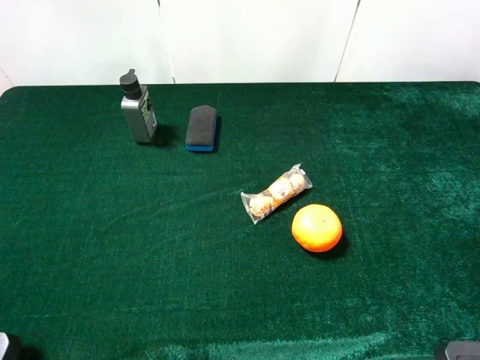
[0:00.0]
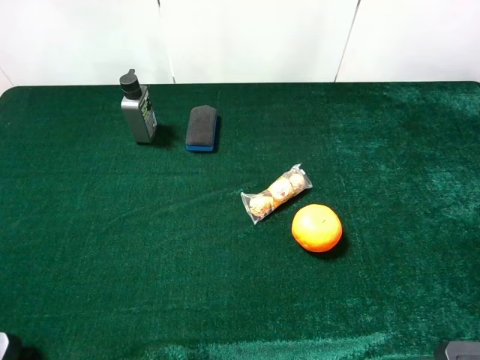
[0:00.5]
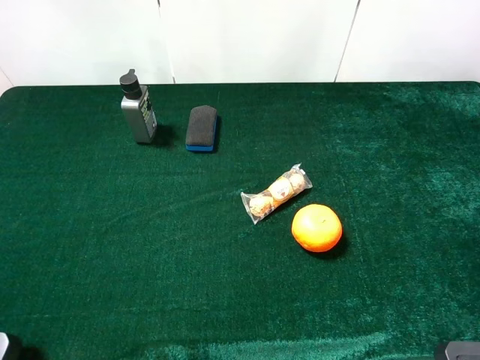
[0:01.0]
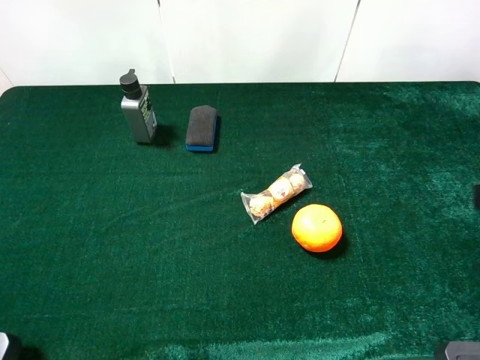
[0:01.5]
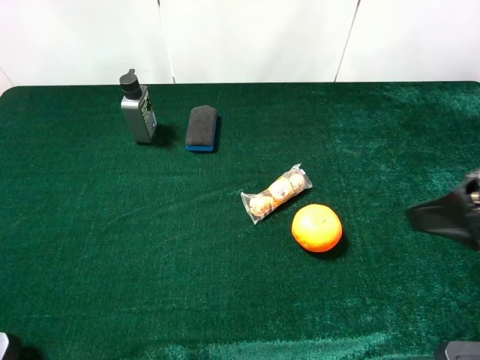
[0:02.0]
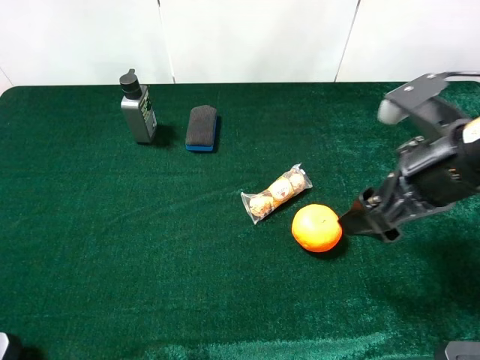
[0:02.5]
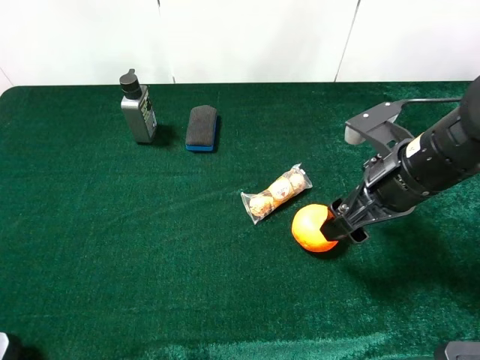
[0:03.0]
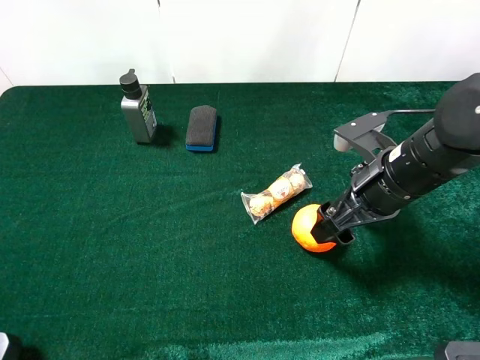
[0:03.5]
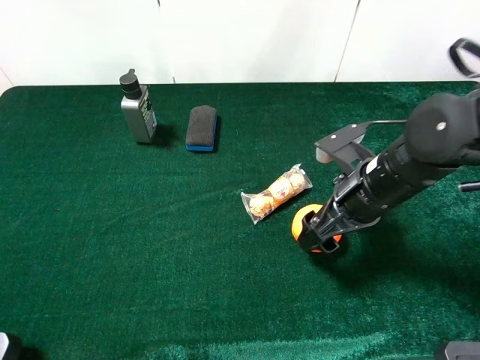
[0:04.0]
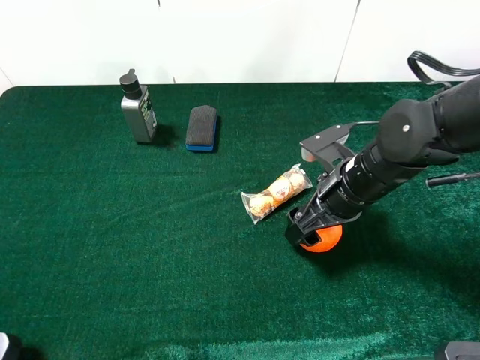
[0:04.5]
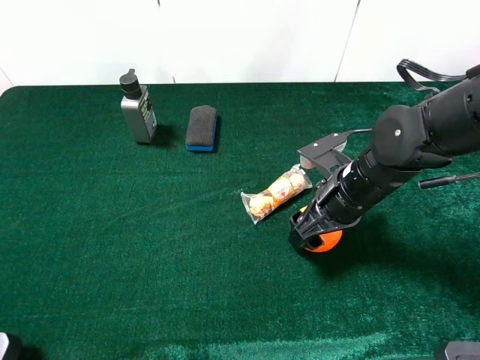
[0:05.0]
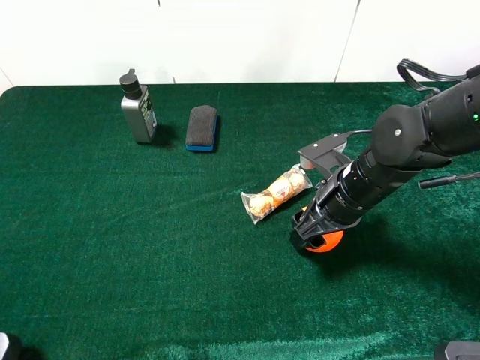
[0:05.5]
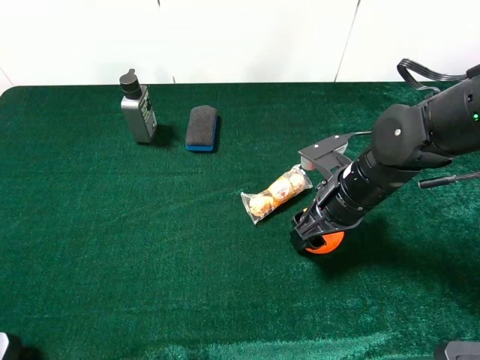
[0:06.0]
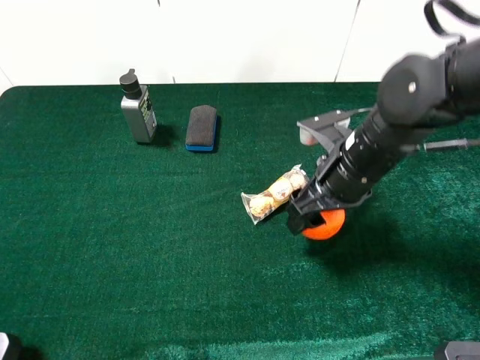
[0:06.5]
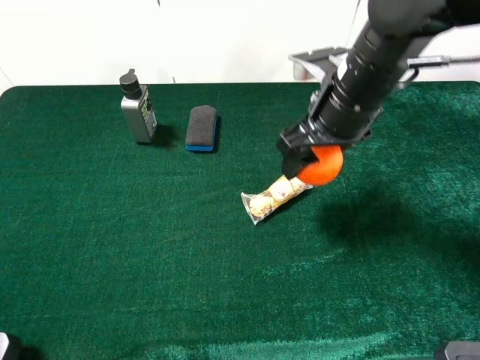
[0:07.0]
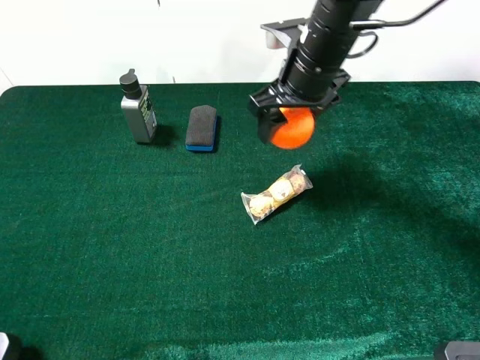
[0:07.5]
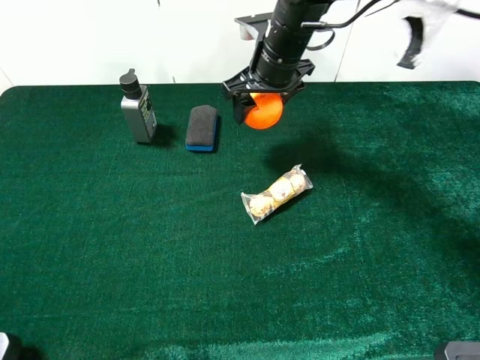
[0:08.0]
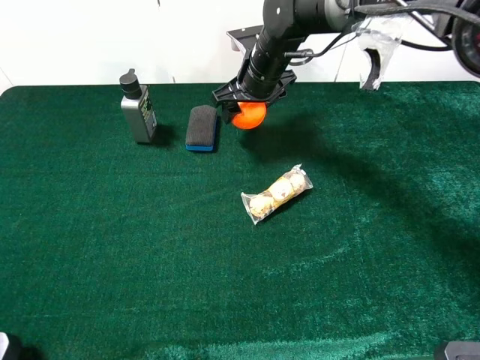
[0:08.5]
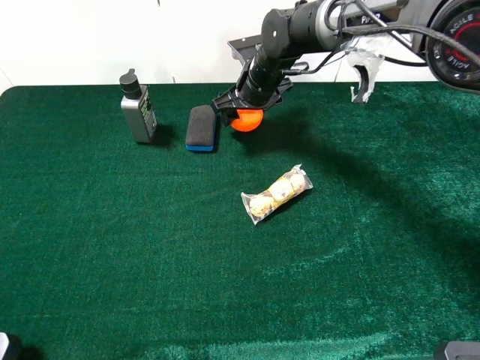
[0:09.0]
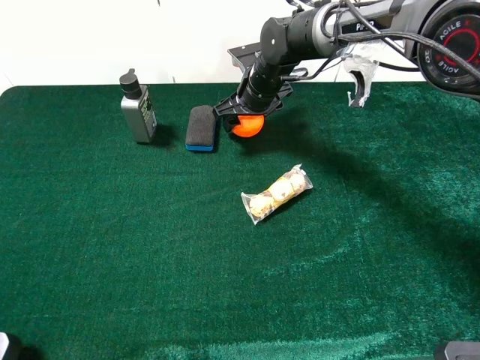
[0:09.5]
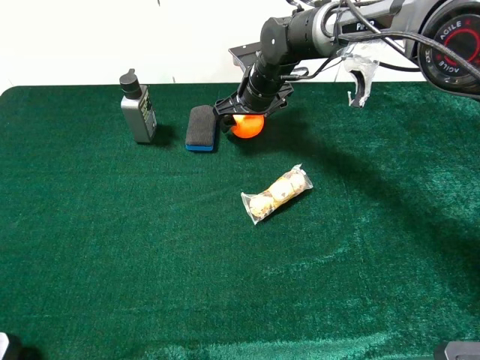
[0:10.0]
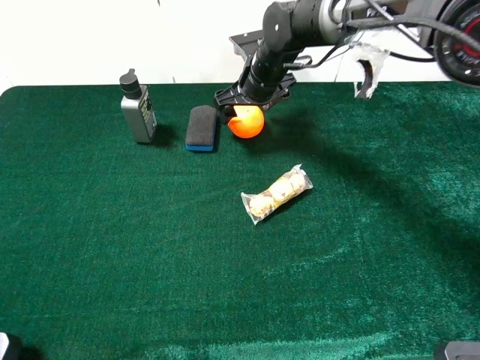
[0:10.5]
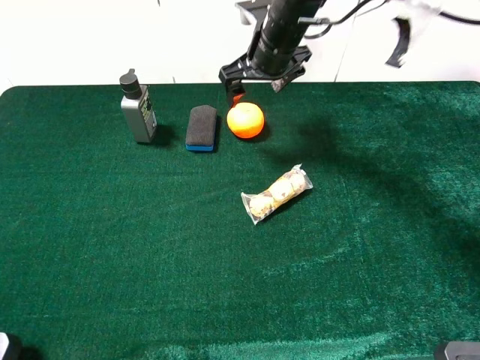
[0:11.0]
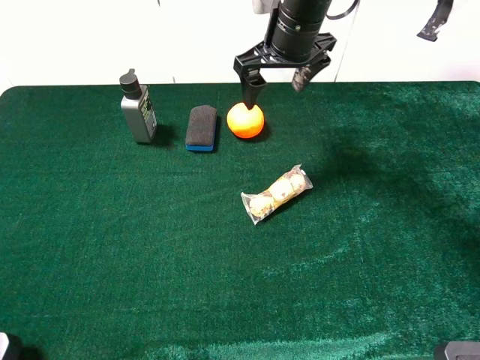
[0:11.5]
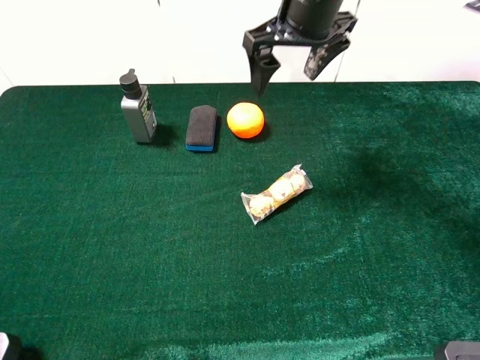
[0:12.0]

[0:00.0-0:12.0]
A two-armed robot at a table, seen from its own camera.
Task of the whole recording: the gripper move the object.
Step, 0:00.0 to 0:06.0: Grasp the orange with the right gripper.
Step, 0:06.5 to 0:10.5: Place the orange on the table with the right gripper.
0:00.0 to 0:02.0: The right gripper heads forward, covering approximately 10 cm.
0:02.0 to 0:04.0: The right gripper heads downward, forward and to the left, covering approximately 20 cm.
0:04.0 to 0:06.0: The right gripper closes its fingers.
0:06.0 to 0:08.0: The right gripper goes about 20 cm forward, to the left and upward.
0:08.0 to 0:10.0: The right gripper moves downward, about 10 cm, and opens.
0:10.0 to 0:12.0: The right gripper moves upward and backward, roughly 20 cm.

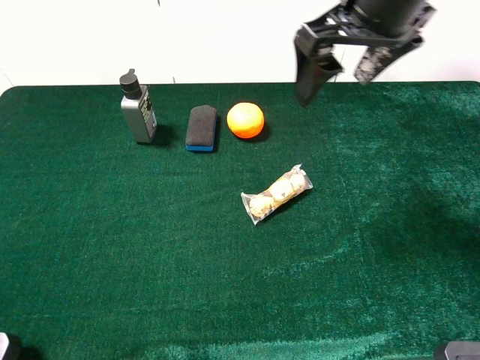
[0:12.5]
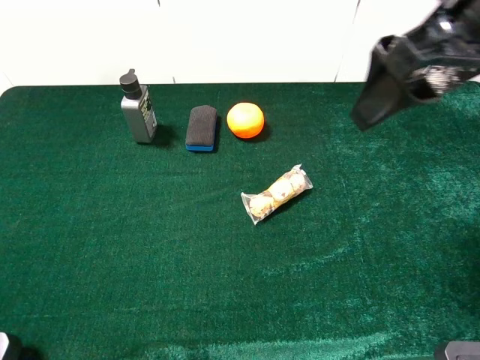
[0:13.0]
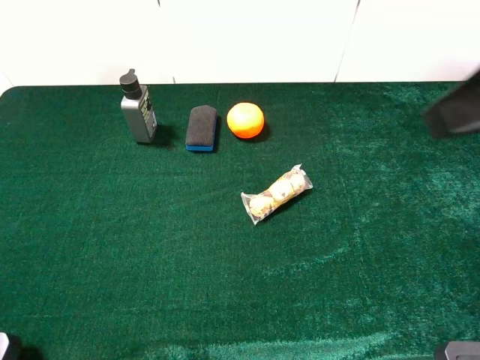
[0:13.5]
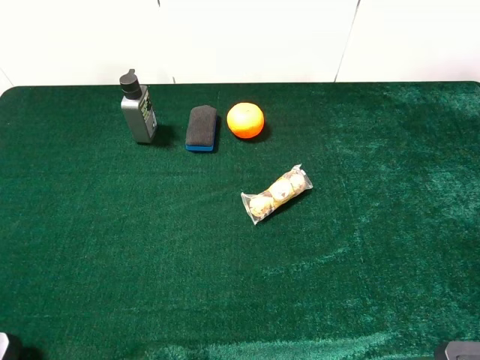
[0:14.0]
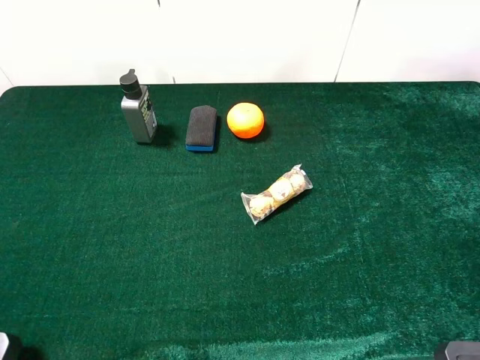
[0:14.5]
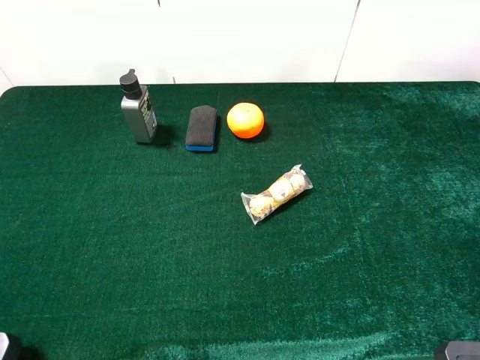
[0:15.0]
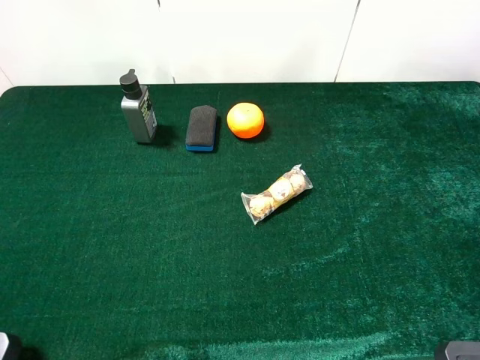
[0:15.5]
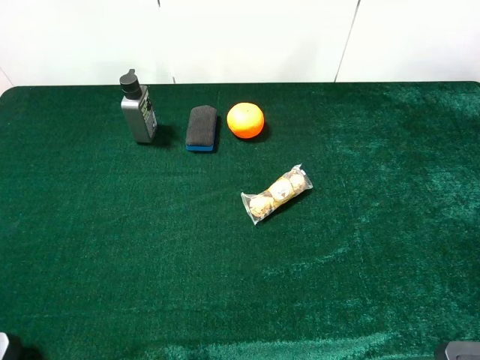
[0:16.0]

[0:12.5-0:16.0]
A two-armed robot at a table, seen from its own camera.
Task of the whole recording: the gripper move the object.
0:12.5 to 0:14.5: The right gripper travels backward and to the right by about 30 cm.
0:14.5 to 0:16.0: Both grippers stay put.

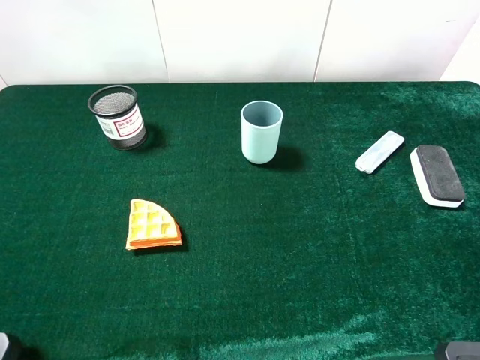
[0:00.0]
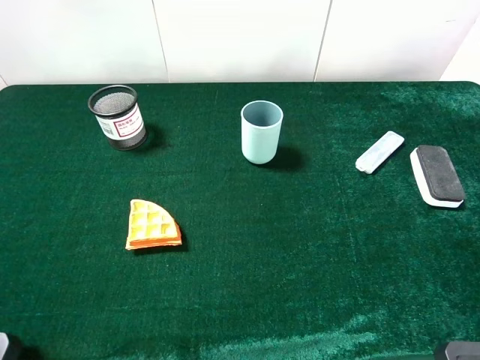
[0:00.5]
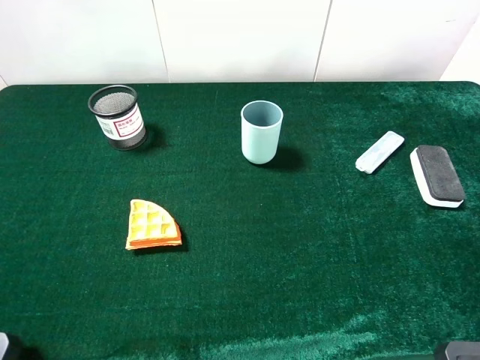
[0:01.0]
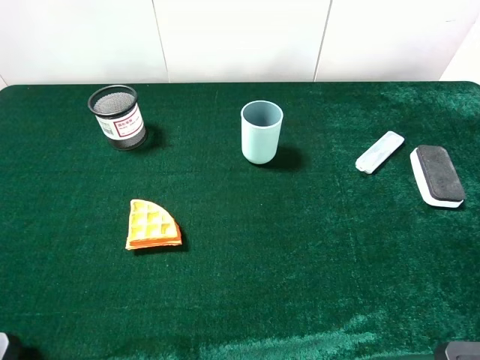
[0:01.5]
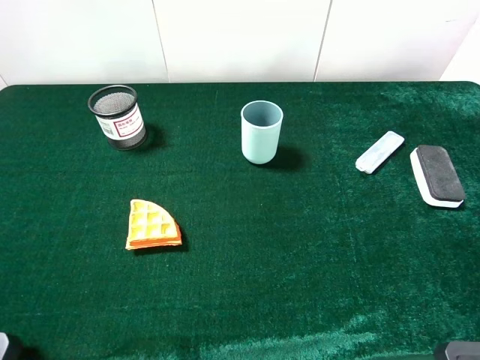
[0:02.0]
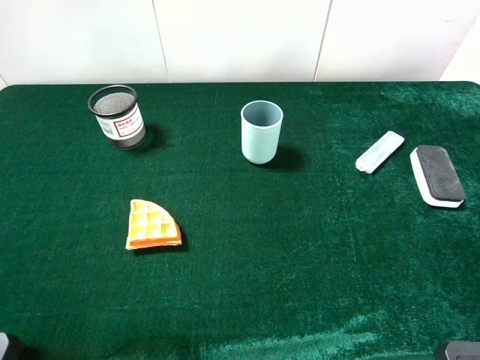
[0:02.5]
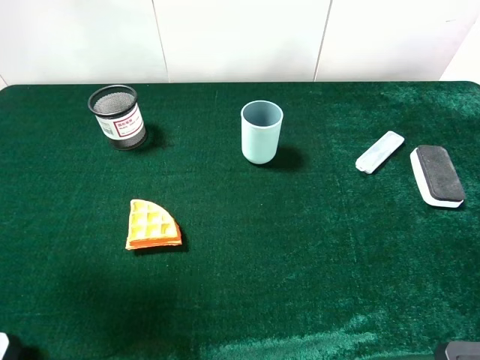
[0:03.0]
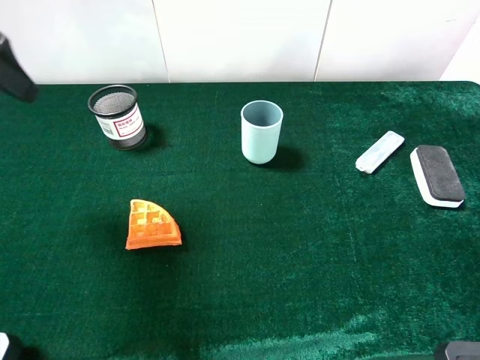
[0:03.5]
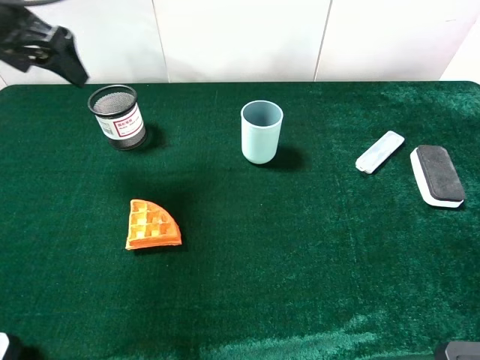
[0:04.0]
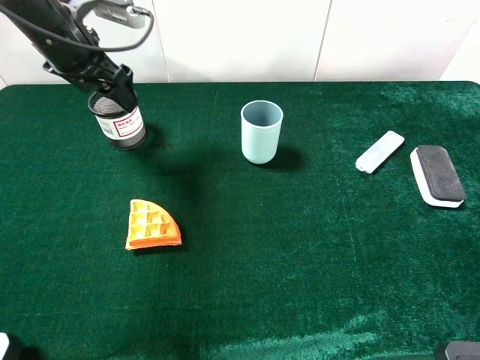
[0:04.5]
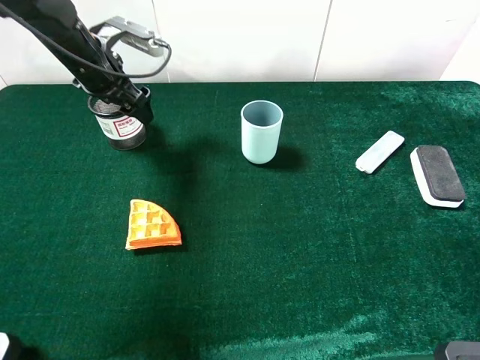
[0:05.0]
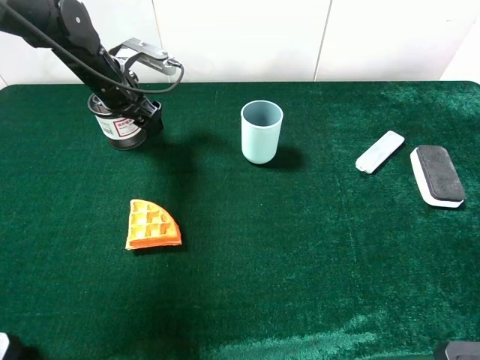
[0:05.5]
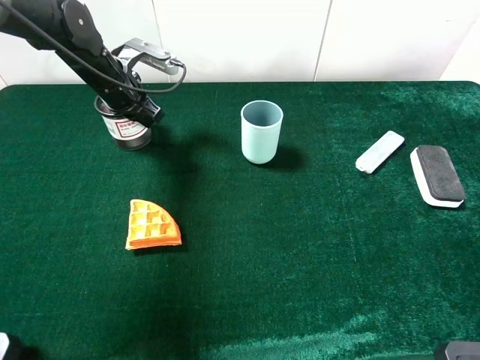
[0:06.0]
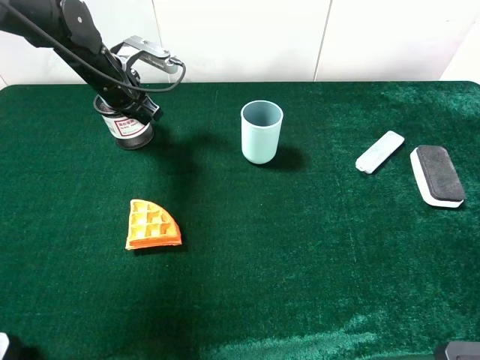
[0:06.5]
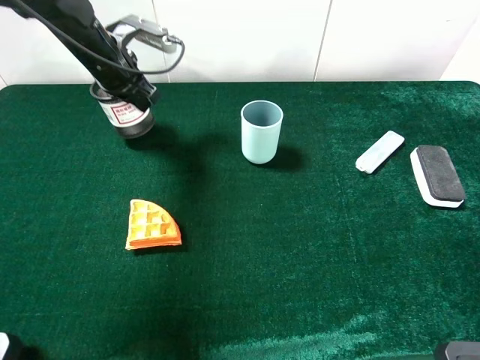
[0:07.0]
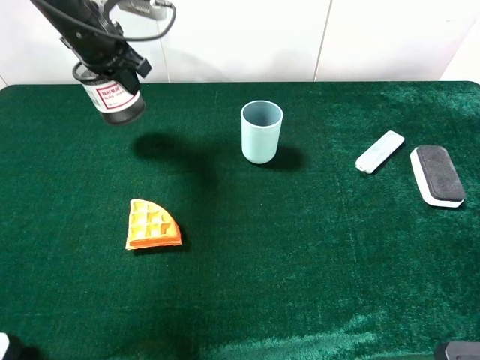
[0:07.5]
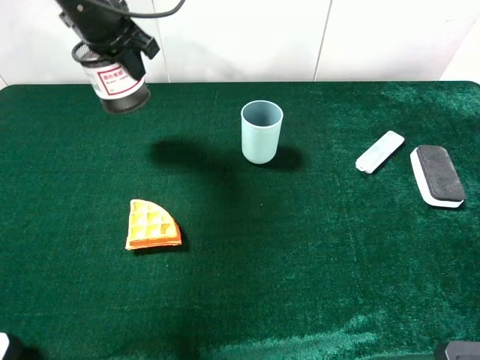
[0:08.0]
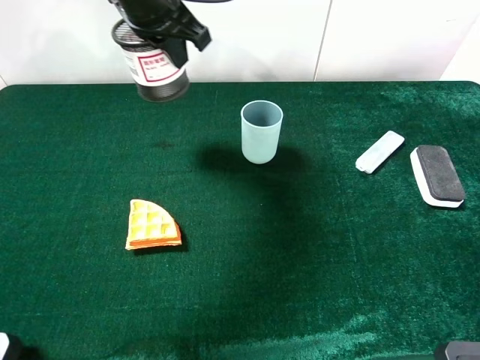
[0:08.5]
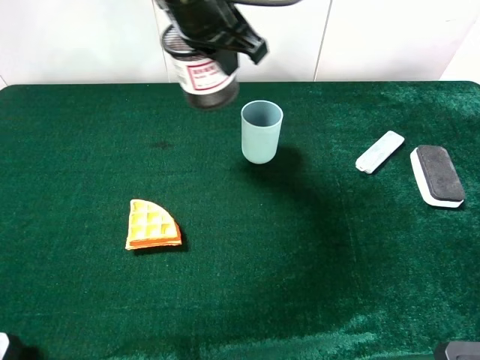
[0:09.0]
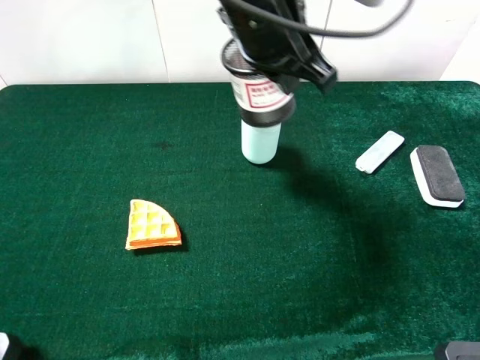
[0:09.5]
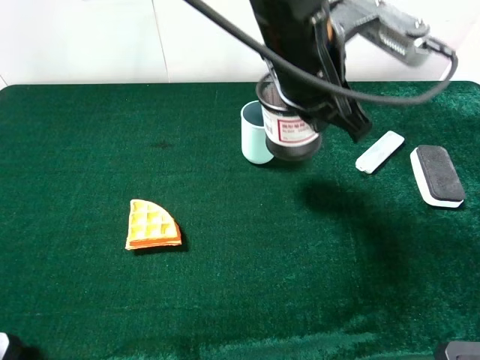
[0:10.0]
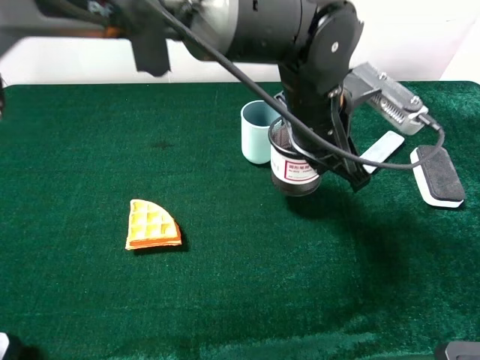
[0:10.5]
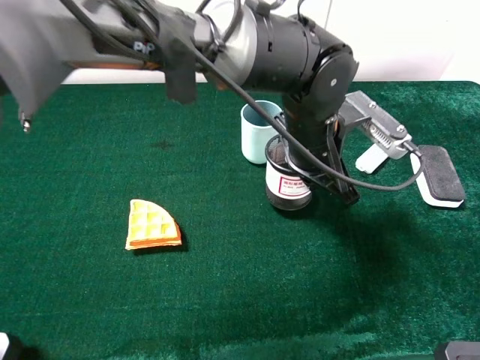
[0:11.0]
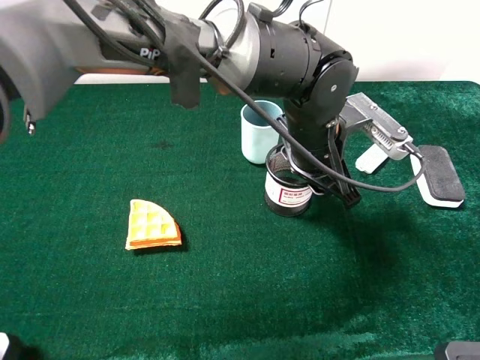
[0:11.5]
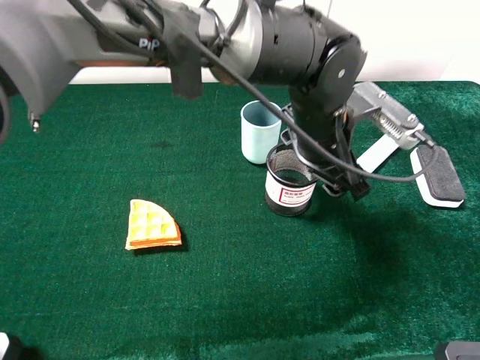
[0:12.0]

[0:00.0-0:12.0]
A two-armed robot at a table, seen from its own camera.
Task of the whole recording: the gripper move the object.
Step, 0:00.0 to 0:06.5: Grasp the pen container with the left gripper.
0:00.0 to 0:02.0: Neither gripper changes place.
0:02.0 to 0:04.0: The left gripper heads forward, covering roughly 35 cm.
0:04.0 to 0:06.0: The left gripper travels downward, forward and to the right by approximately 20 cm, and closes.
0:06.0 to 0:08.0: The left gripper is displaced upward by some 15 cm.
0:08.0 to 0:10.0: The left gripper travels to the right and backward by some 25 cm.
0:10.0 to 0:12.0: The left gripper shifts approximately 5 cm downward, and opens up.
